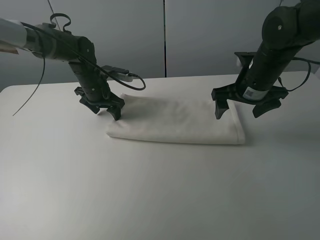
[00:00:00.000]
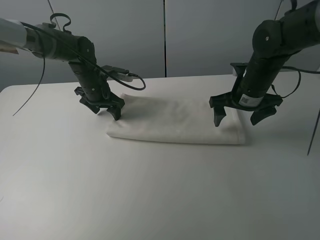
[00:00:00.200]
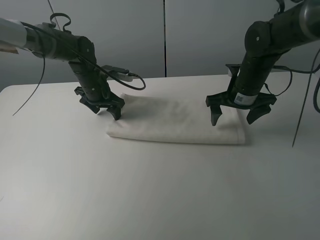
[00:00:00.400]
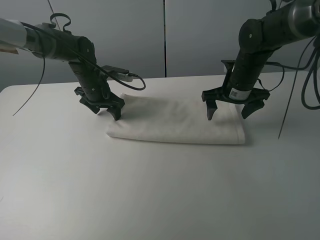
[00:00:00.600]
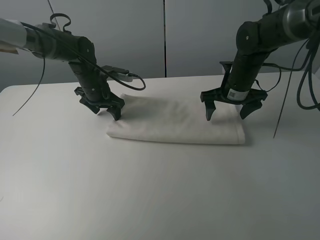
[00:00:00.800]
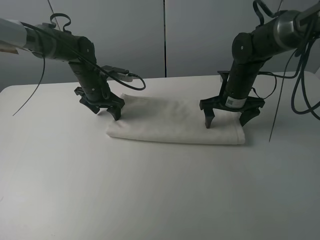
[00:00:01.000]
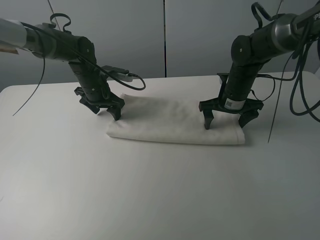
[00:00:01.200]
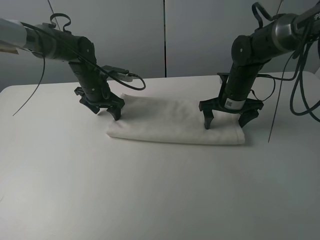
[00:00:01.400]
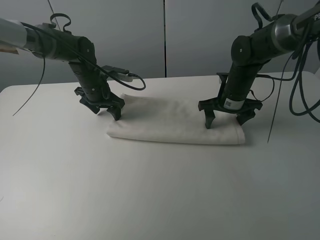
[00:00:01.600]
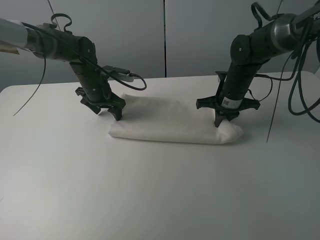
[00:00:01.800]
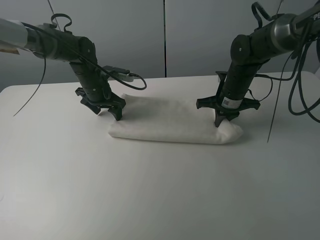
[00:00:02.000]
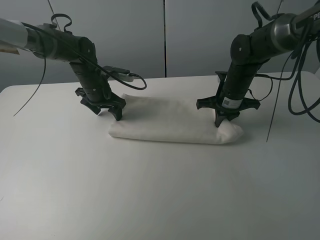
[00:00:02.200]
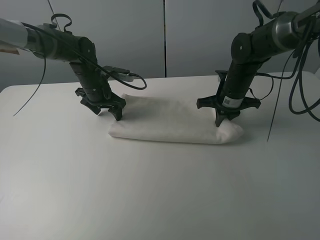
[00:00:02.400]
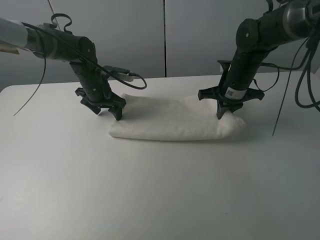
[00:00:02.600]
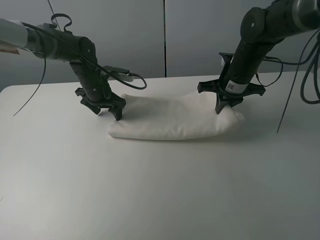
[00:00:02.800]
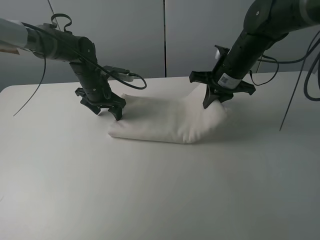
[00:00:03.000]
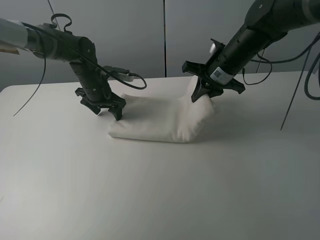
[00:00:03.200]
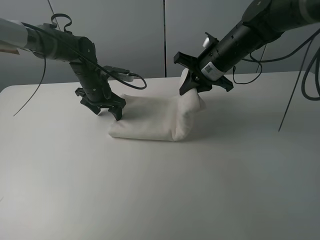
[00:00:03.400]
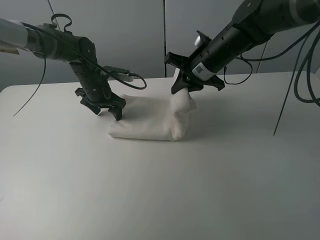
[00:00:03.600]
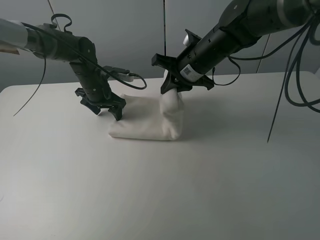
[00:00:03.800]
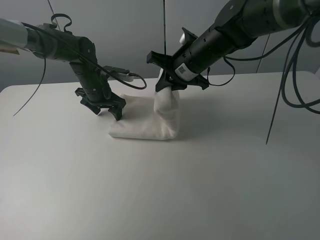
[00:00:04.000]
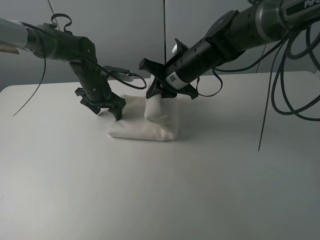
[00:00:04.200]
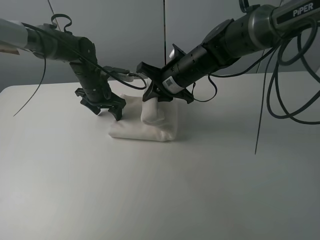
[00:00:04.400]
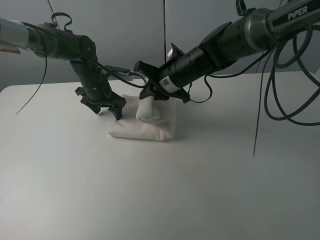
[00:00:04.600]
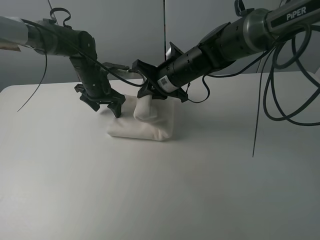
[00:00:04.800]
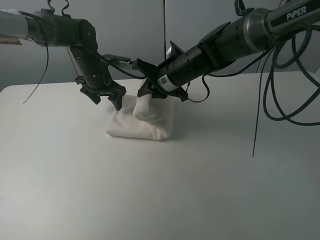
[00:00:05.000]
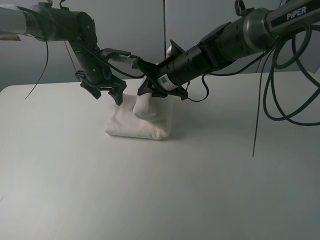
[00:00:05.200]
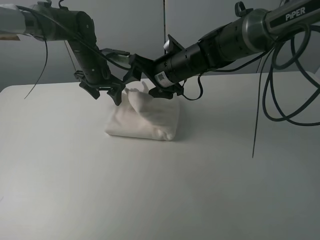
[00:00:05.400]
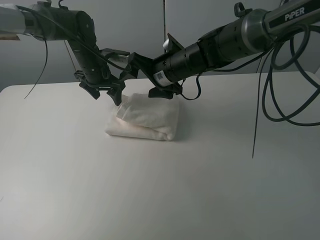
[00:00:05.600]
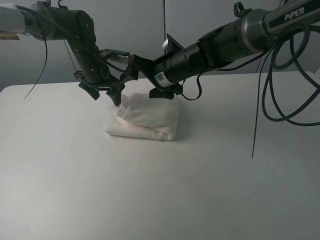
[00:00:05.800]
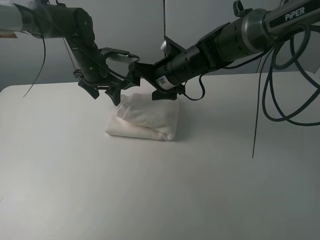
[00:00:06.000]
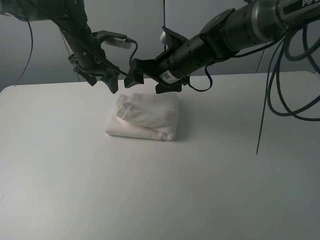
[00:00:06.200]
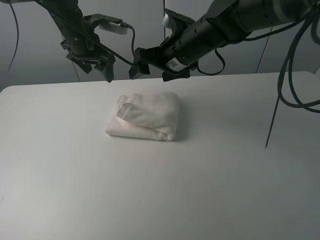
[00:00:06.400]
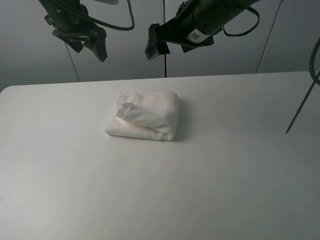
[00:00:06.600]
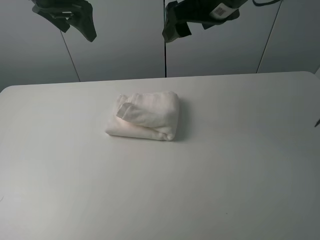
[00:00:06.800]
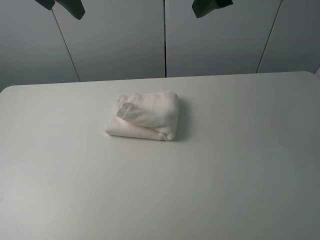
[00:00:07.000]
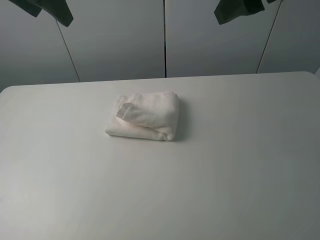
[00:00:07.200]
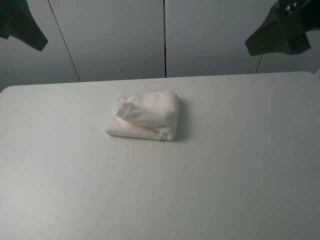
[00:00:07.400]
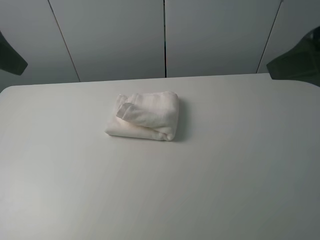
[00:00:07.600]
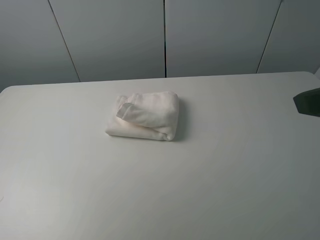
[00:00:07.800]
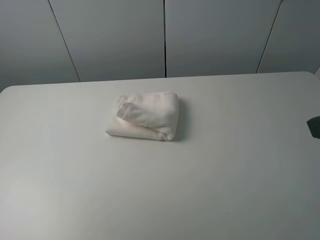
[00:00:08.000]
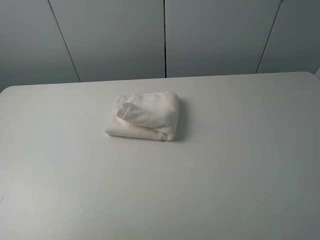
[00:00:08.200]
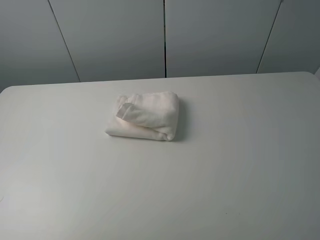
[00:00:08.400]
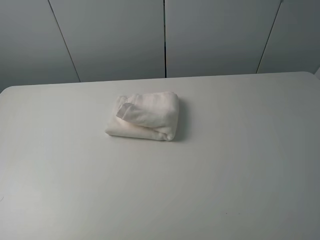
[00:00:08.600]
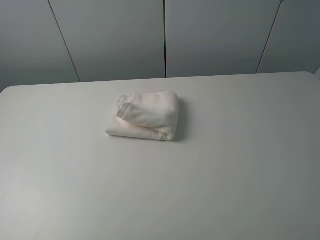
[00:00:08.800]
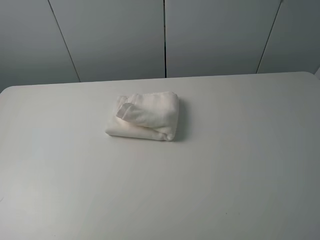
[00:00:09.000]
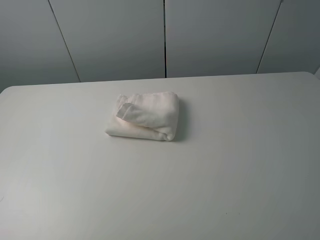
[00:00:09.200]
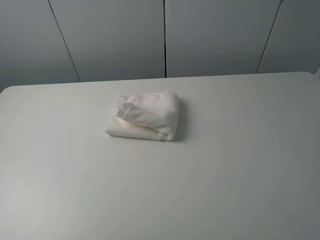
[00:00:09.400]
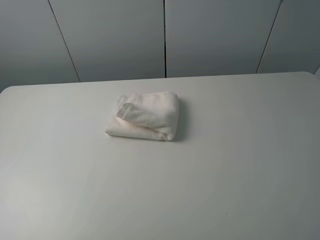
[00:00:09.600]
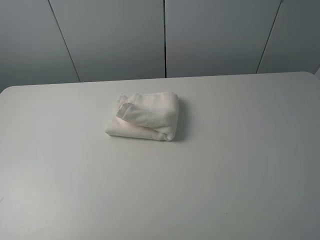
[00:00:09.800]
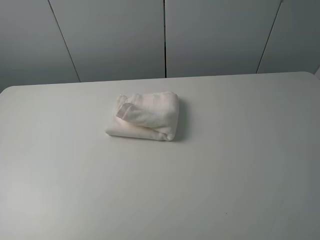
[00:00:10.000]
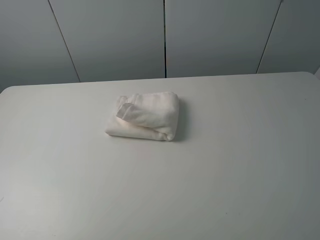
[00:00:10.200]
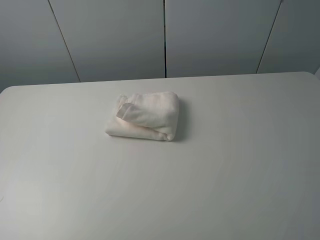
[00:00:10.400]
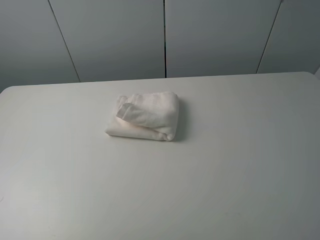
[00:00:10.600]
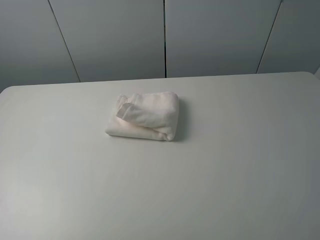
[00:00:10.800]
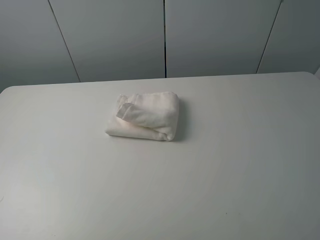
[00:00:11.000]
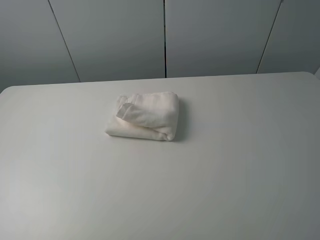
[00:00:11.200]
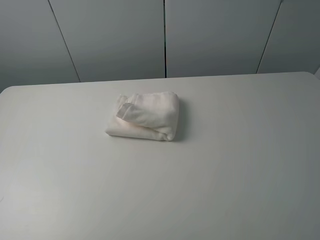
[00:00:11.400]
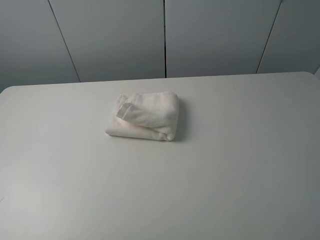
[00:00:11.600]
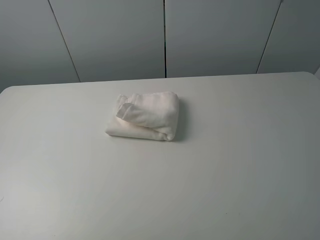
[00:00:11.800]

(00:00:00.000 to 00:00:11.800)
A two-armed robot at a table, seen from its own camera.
Task of the whole recording: fold the towels on the table.
Step, 00:00:00.000 - 00:00:05.600: Fold the white towel from right to left with right gripper.
00:00:00.000 - 00:00:01.400: The right gripper heads downward and forward, covering some 10 cm.
00:00:01.400 - 00:00:03.000: The right gripper goes some 5 cm upward, and closes its fingers.
00:00:03.000 - 00:00:04.400: The right gripper travels to the left by approximately 10 cm.
00:00:04.400 - 00:00:06.000: The left gripper goes roughly 5 cm upward. Meanwhile the right gripper opens.
00:00:06.000 - 00:00:07.400: The right gripper is displaced upward, backward and to the right by about 35 cm, while the left gripper shifts roughly 30 cm upward and backward.
00:00:07.400 - 00:00:08.800: The right gripper is displaced backward, to the right and downward by approximately 20 cm. The left gripper shifts approximately 25 cm backward.

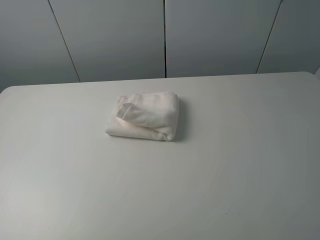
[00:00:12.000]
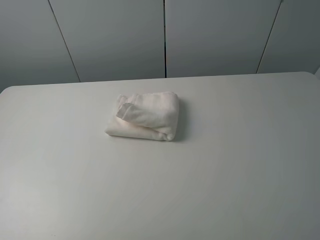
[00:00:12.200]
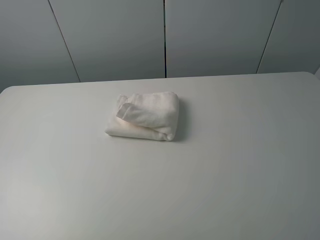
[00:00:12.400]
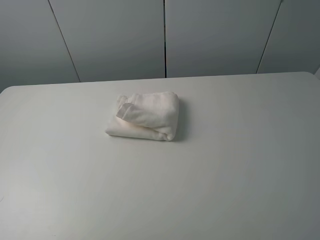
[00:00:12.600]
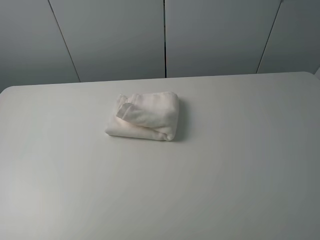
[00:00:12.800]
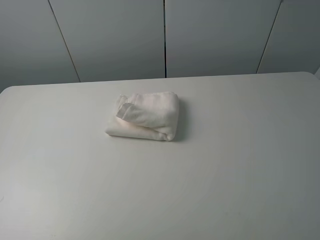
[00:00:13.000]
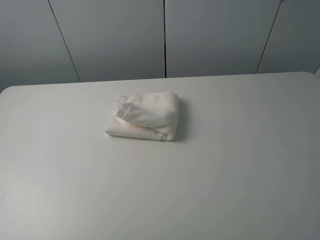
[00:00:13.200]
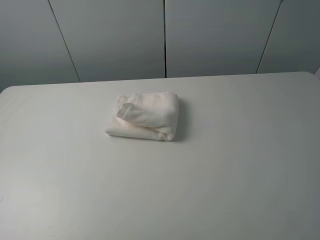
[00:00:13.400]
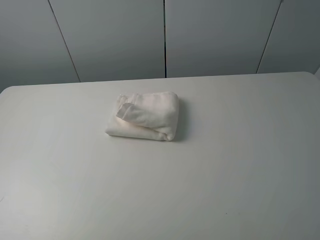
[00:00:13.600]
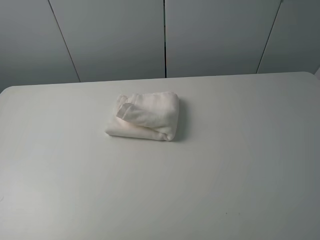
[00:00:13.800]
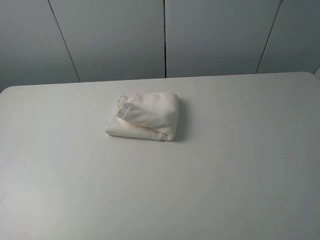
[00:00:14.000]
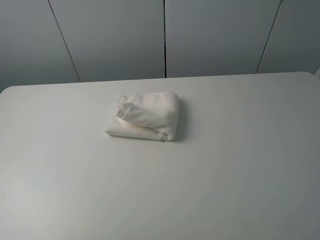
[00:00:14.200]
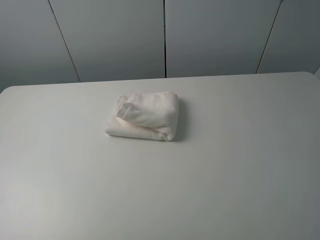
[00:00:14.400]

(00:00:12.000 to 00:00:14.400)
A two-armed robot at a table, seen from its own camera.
Task of the whole recording: fold the towels on the table.
00:00:12.000 - 00:00:14.400: Neither gripper changes place.
